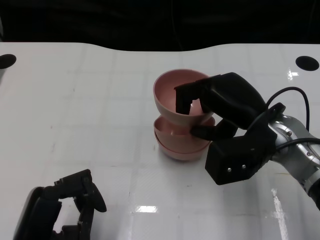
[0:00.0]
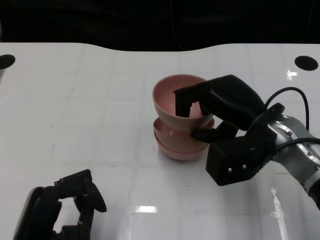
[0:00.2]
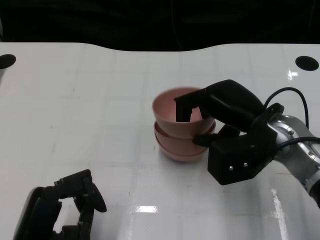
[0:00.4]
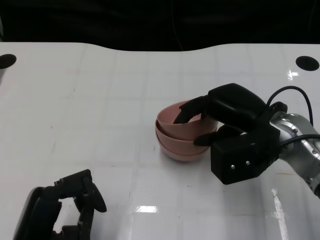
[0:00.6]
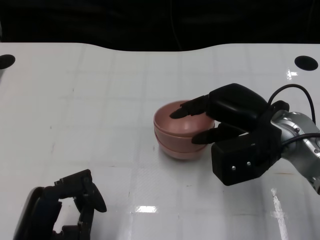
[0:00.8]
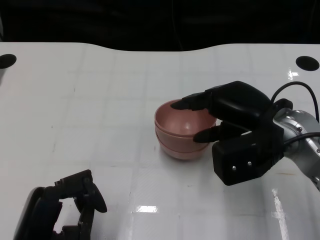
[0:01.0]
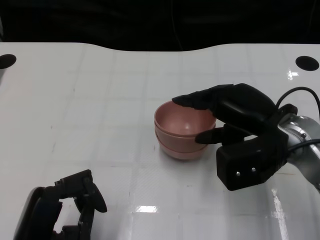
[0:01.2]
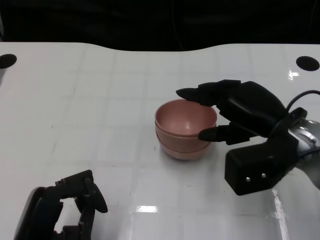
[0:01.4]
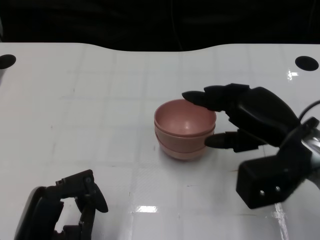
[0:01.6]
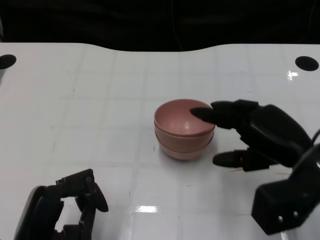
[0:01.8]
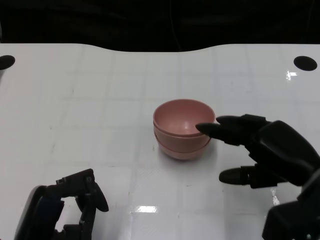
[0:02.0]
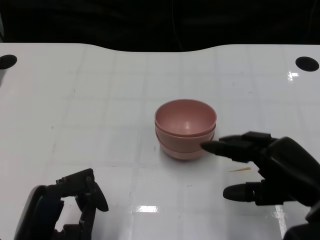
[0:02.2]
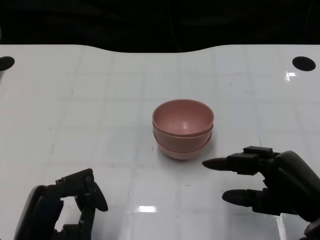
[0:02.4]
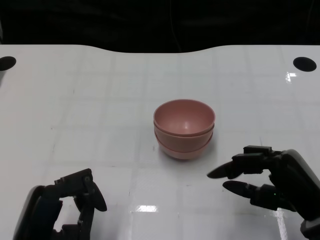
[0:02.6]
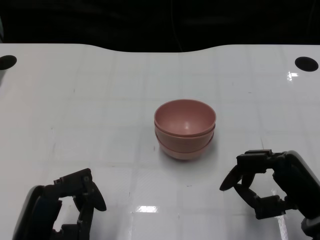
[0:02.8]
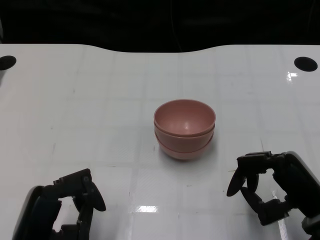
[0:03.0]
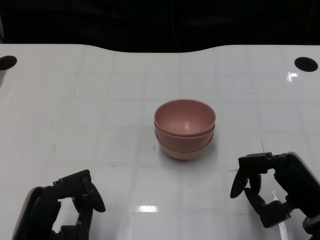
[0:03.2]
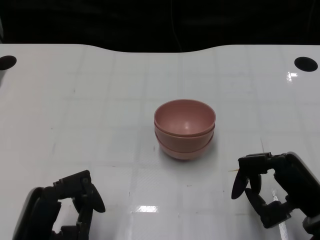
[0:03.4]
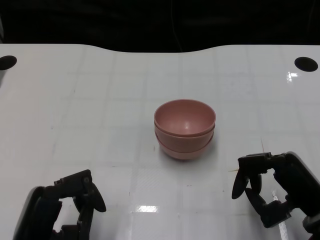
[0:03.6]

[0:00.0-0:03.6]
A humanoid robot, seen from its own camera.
Task of the whole recording: Pick up the bowl on one side of the table and place it on top of the middle bowl, then pick up the bowl on the other side of the table and place it on top of the middle bowls.
0:00.0 to 0:01.8: The right hand heads to the right, covering roughly 5 cm.
0:01.8 to 0:03.6: The right hand is displaced downward by about 5 cm.

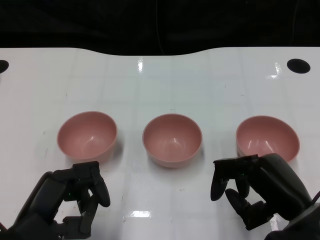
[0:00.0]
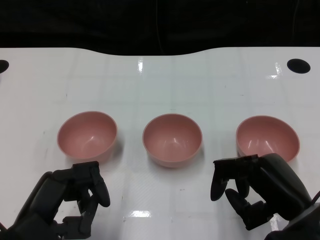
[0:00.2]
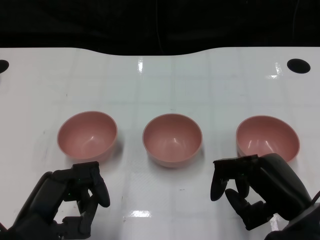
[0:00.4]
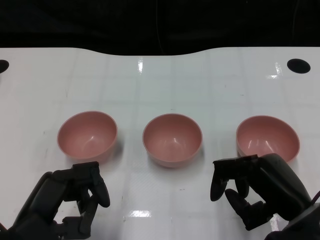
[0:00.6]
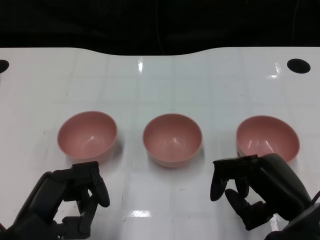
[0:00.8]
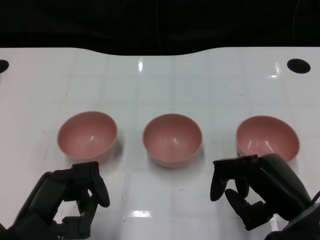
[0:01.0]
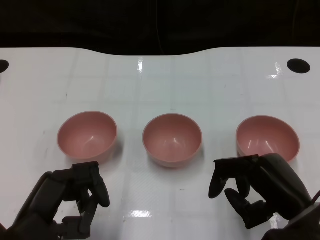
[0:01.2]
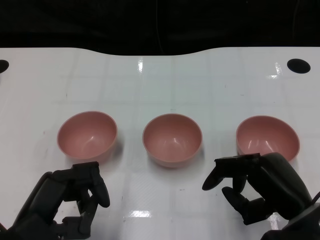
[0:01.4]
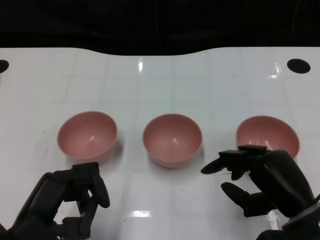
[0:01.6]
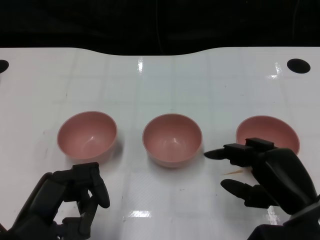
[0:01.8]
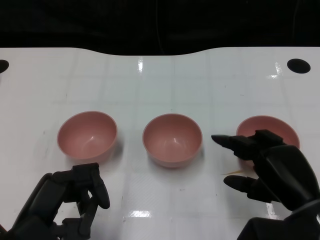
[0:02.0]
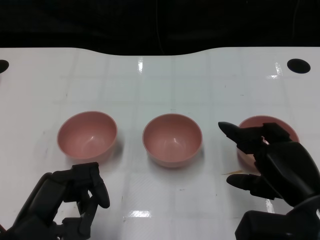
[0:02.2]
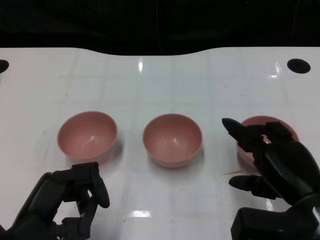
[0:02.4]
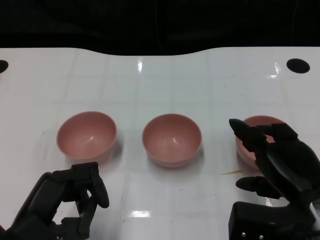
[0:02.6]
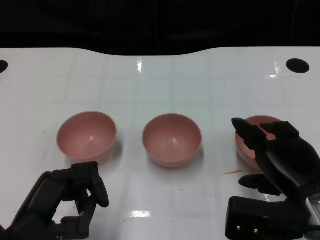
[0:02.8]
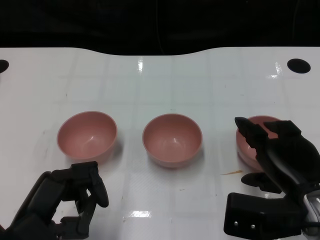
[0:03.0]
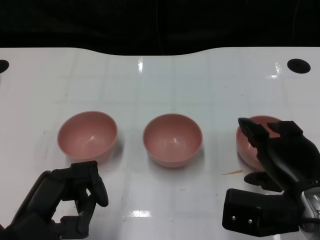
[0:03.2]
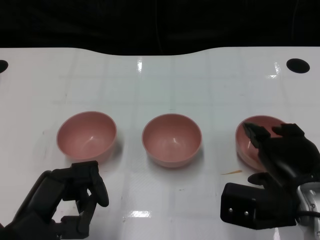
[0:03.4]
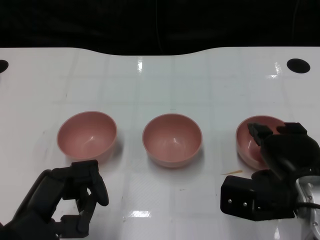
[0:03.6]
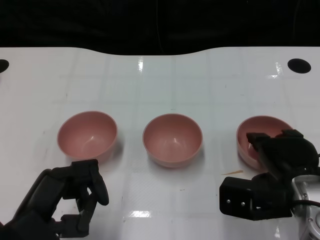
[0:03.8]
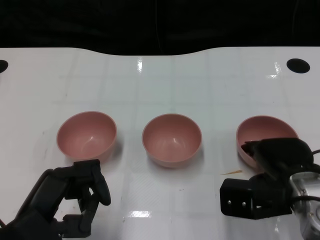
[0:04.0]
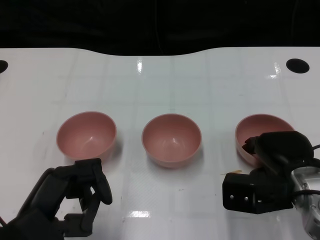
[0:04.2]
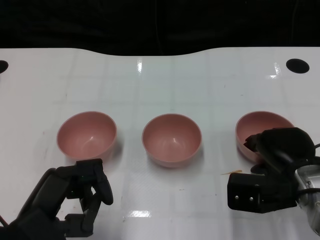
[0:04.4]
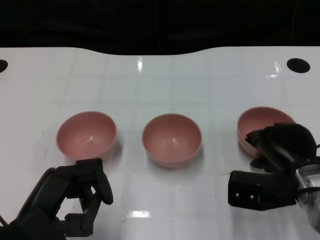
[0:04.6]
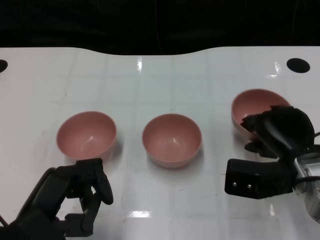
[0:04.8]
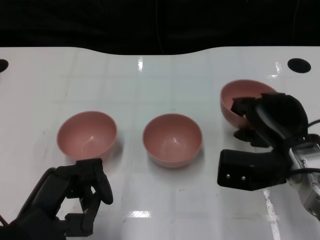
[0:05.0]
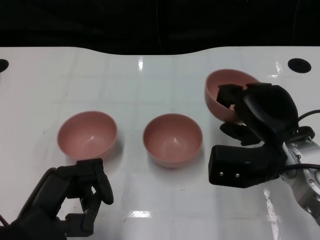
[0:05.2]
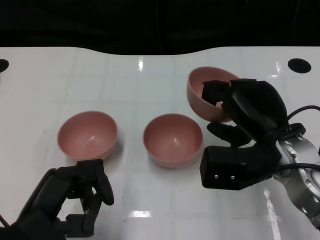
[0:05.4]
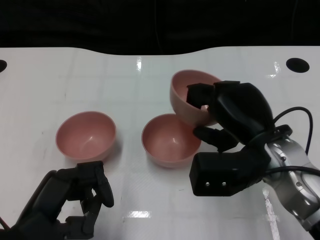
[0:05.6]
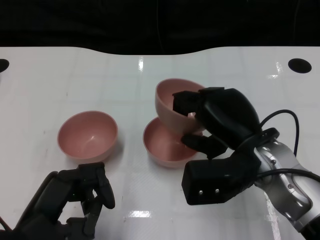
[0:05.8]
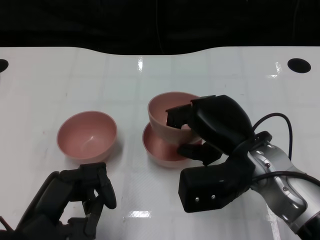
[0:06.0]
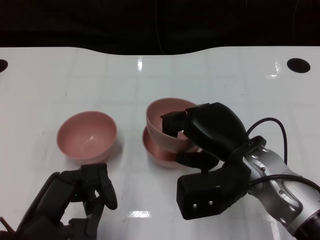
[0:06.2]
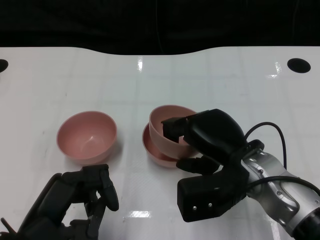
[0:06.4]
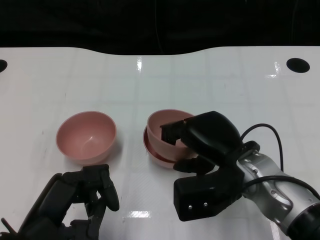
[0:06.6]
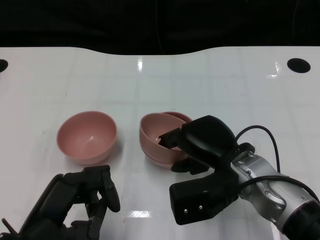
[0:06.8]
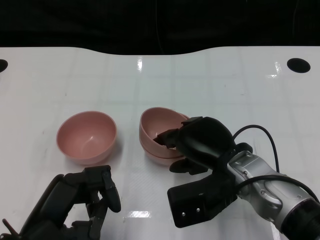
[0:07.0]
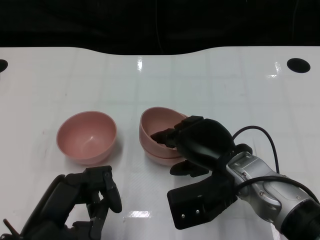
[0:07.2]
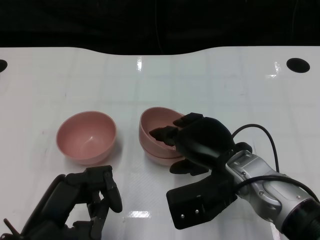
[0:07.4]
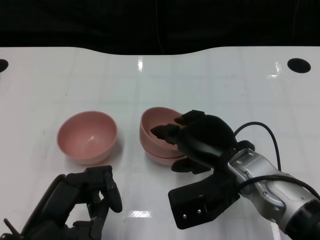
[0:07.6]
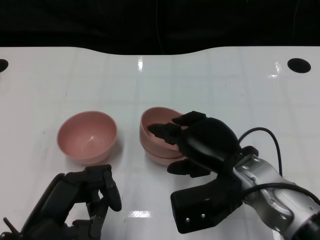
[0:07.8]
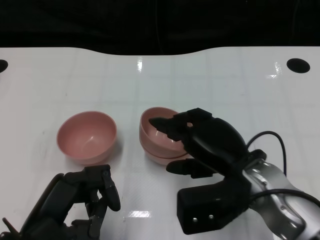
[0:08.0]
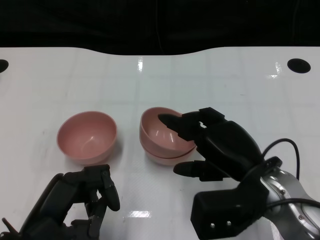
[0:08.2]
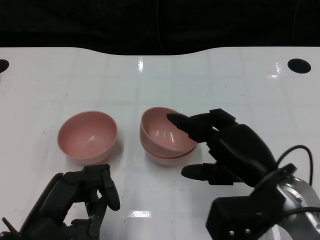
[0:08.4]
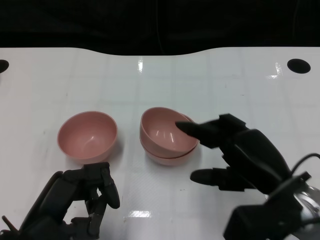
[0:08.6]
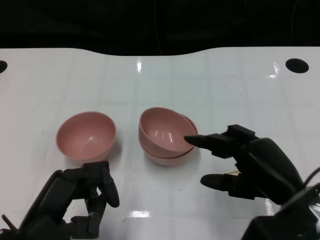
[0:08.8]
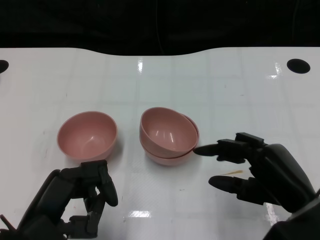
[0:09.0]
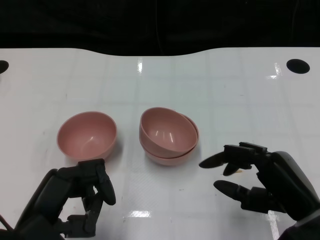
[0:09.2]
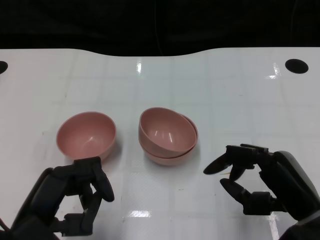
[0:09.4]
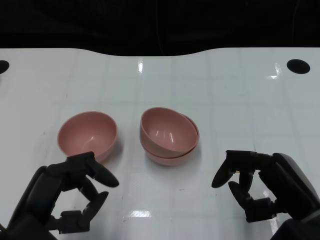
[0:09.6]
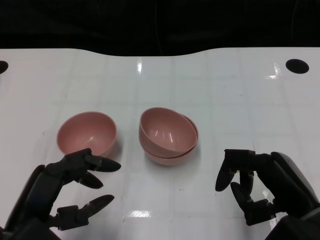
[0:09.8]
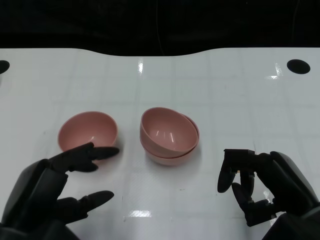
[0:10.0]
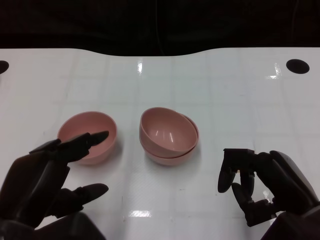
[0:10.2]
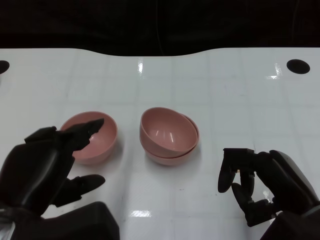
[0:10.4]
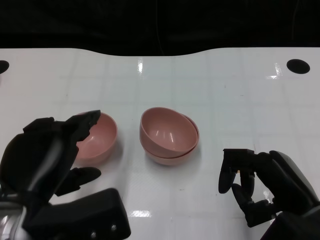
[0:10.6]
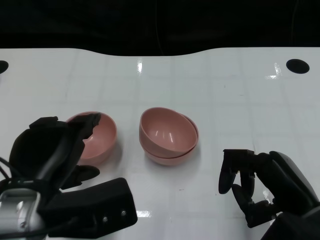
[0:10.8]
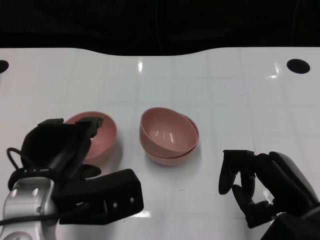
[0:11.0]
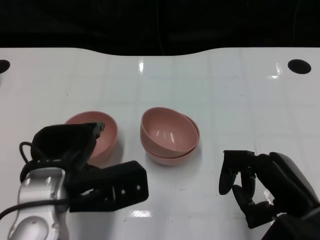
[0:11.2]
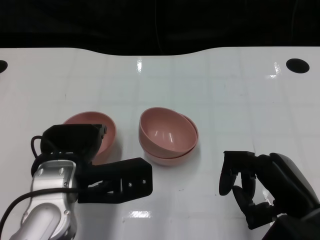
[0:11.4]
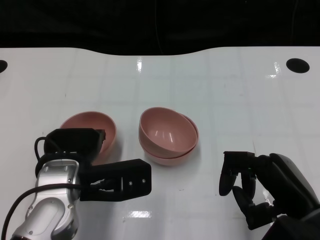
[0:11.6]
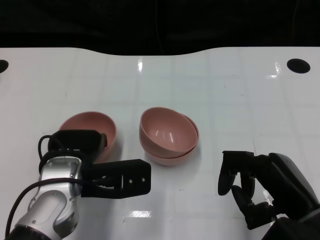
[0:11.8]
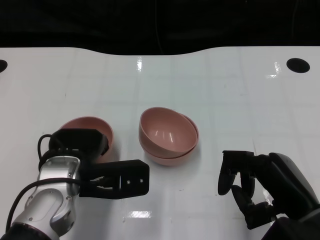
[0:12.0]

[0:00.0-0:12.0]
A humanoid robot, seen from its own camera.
Task of the whole recording: Pick up the bowl on one side of the table and place it on top of the middle bowl, then pick up the bowl on the other side of the table and place it on top of the middle bowls.
Step, 0:01.2 to 0:04.6: Grasp the bowl on the right with the right gripper.
Step, 0:04.8 to 0:08.2: Place the bowl on the right onto the bowl in the middle with right gripper.
0:03.0 to 0:04.4: The right hand goes about 5 cm forward.
0:04.4 to 0:06.0: The right hand travels to the left and upward by roughly 10 cm.
0:06.0 to 0:07.6: The hands move only a little.
0:07.6 to 0:09.0: The right hand goes approximately 10 cm to the right and backward.
0:09.0 to 0:10.4: The left hand travels upward by about 5 cm.
0:10.4 to 0:12.0: The left hand moves forward and downward, some 10 cm.

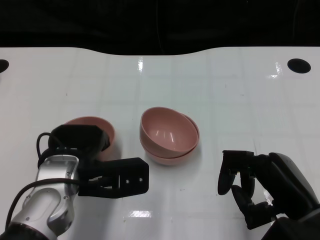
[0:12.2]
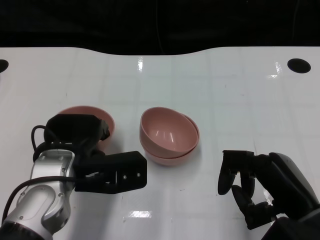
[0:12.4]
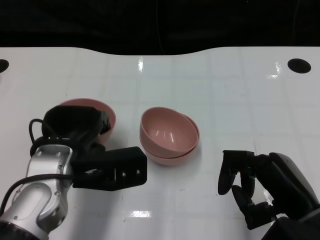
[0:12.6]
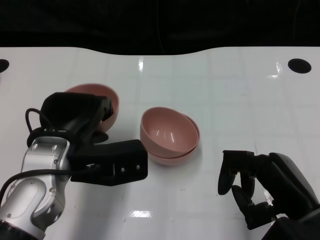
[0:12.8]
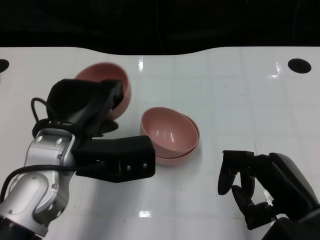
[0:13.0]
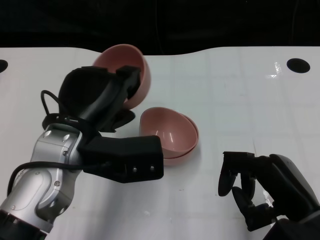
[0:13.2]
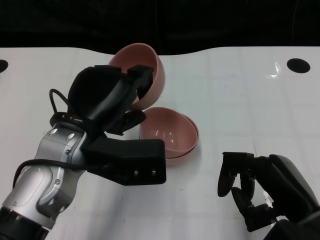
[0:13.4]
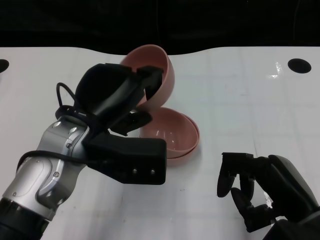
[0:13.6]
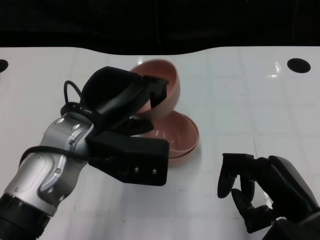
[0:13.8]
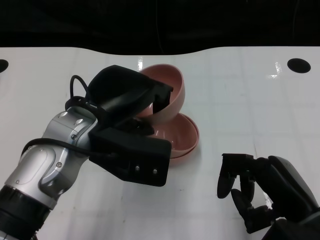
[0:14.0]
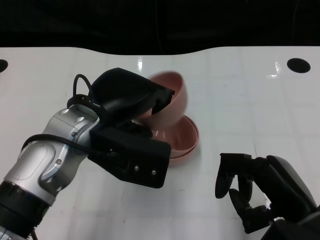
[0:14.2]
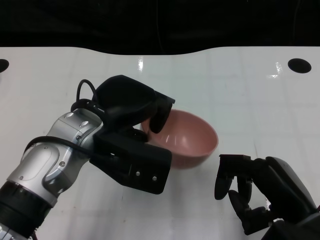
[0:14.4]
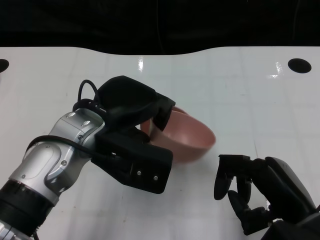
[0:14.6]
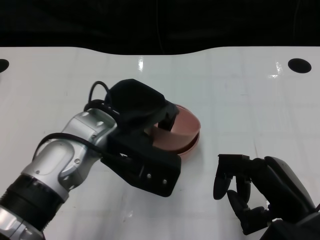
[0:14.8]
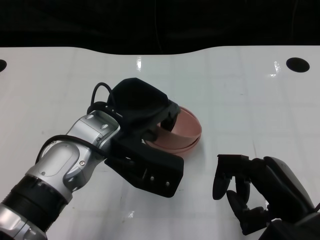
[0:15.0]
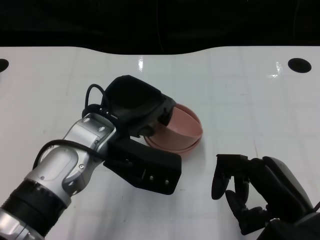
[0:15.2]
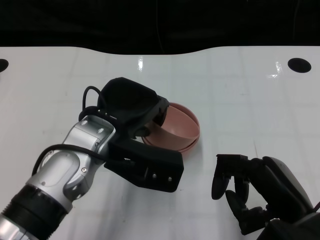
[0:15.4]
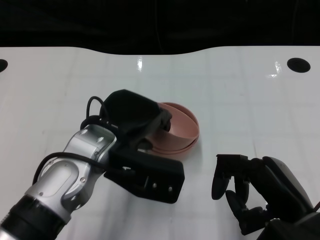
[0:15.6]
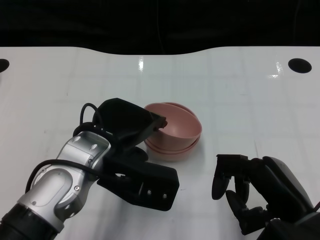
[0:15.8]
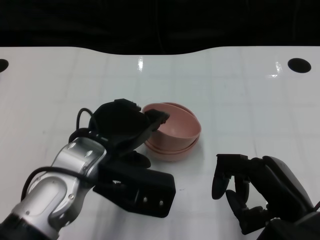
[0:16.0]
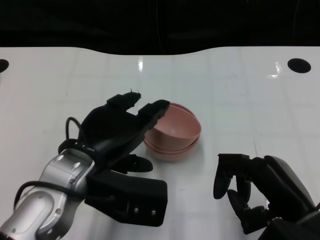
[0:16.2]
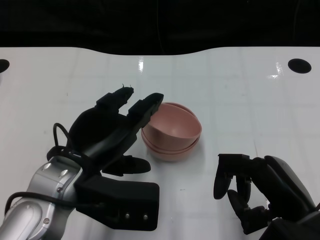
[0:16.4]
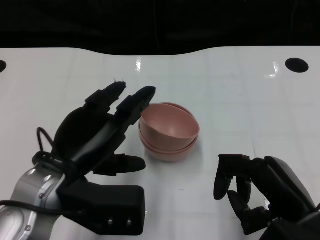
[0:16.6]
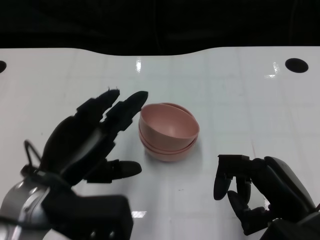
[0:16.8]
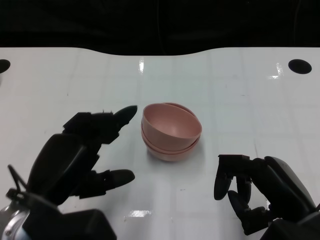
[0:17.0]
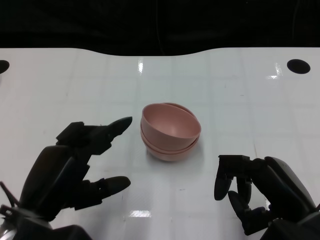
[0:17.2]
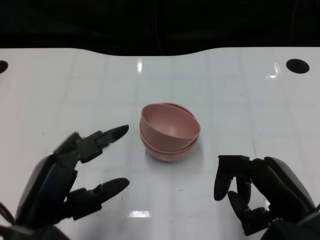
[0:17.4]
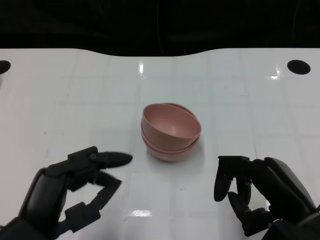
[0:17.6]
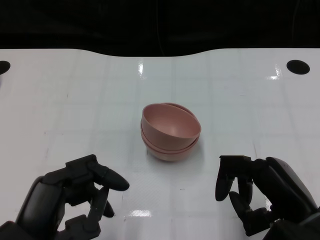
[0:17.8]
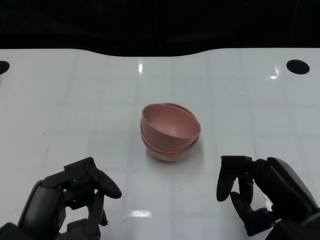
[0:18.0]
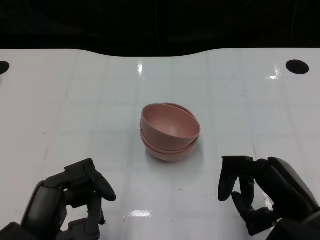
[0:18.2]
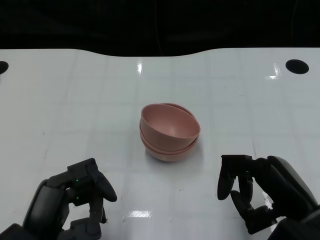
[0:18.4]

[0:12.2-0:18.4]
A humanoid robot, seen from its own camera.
Task of the whole recording: Pick up the bowl on one side of the table and place it on top of the middle bowl, then pick up the bowl on the other side of the table and place it on top of the middle bowls.
Step, 0:12.6 to 0:16.6: Place the bowl on the left onto the bowl in the middle with left gripper.
0:12.2 to 0:13.8: The left hand shifts about 10 cm upward.
0:15.4 to 0:16.8: The left hand moves to the left and backward, about 10 cm.
0:16.8 to 0:18.4: The left hand travels backward by about 10 cm.
